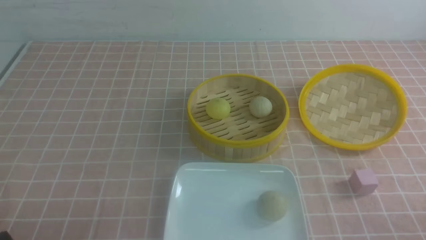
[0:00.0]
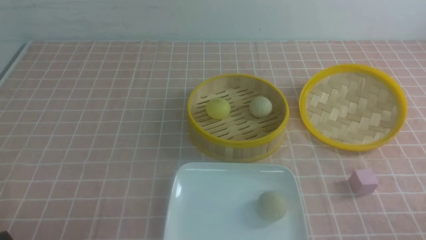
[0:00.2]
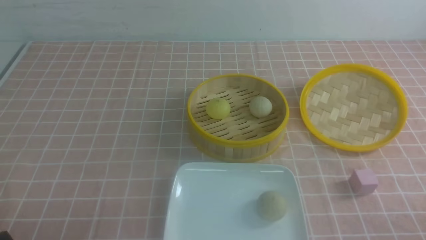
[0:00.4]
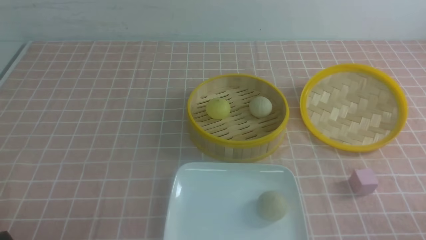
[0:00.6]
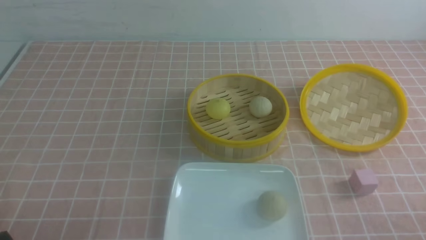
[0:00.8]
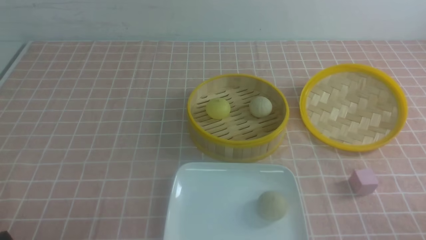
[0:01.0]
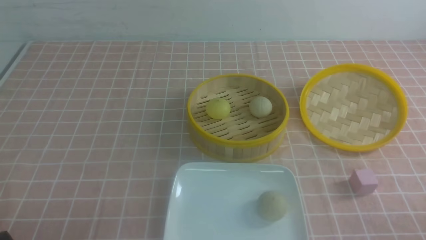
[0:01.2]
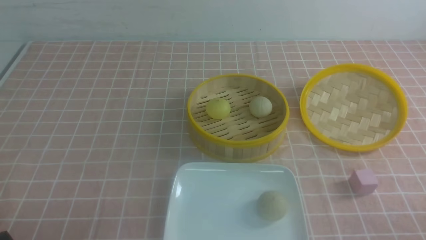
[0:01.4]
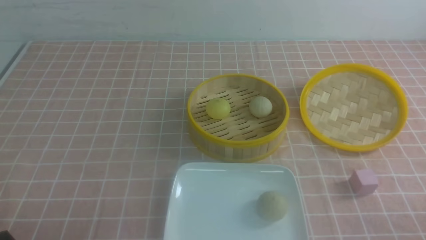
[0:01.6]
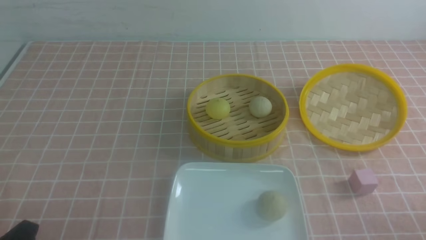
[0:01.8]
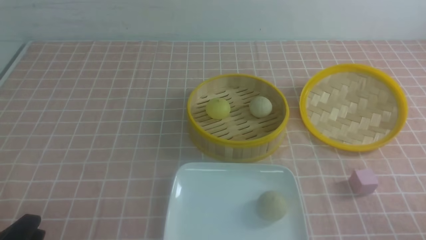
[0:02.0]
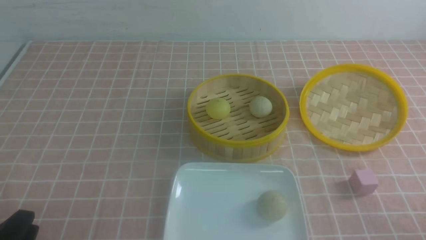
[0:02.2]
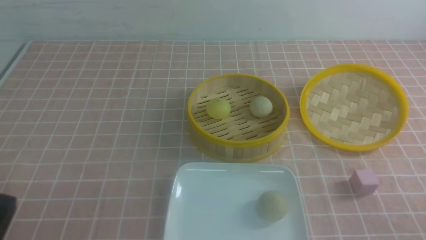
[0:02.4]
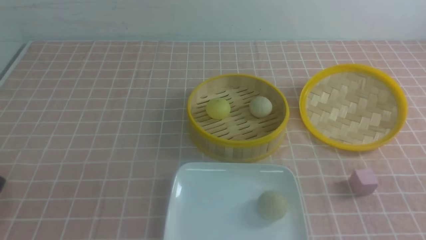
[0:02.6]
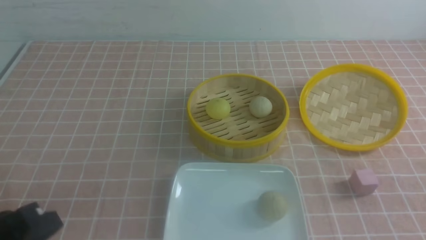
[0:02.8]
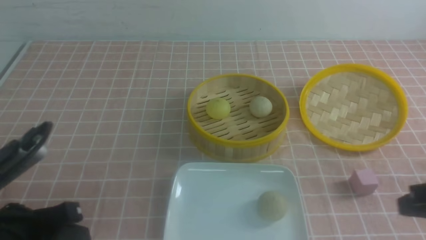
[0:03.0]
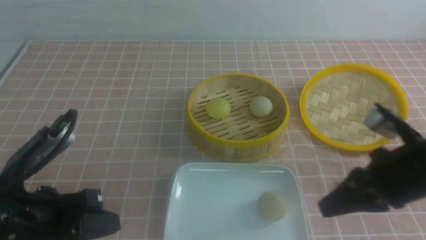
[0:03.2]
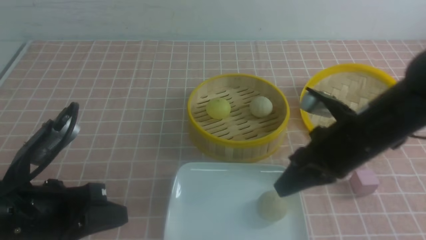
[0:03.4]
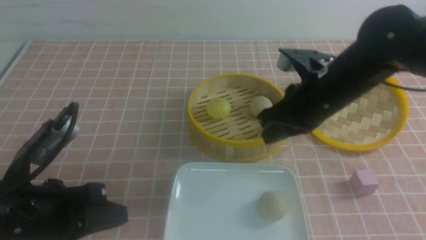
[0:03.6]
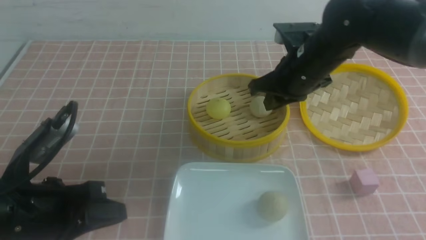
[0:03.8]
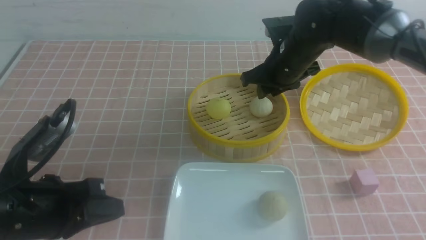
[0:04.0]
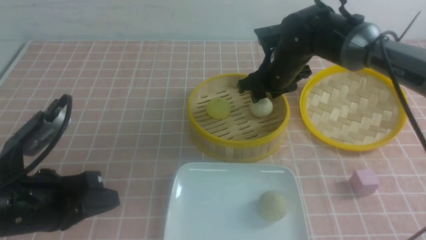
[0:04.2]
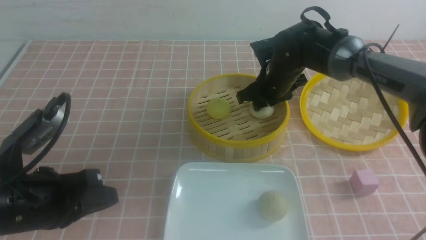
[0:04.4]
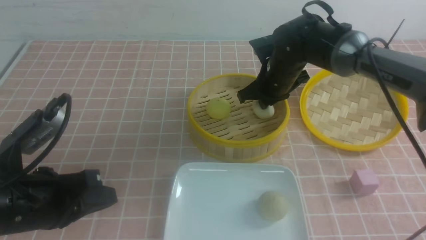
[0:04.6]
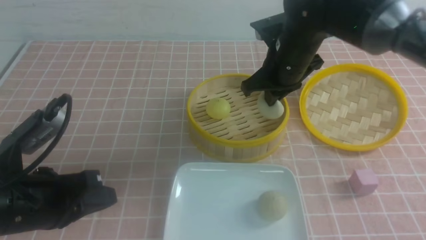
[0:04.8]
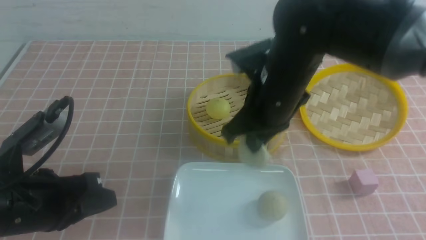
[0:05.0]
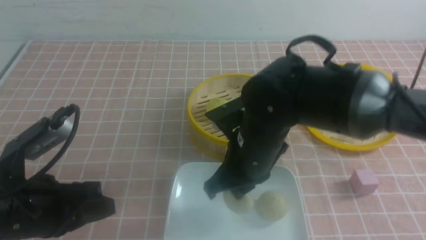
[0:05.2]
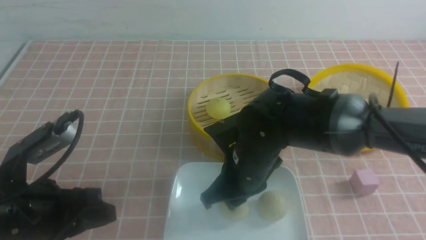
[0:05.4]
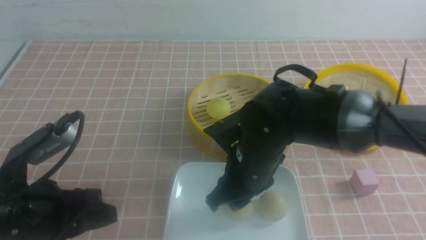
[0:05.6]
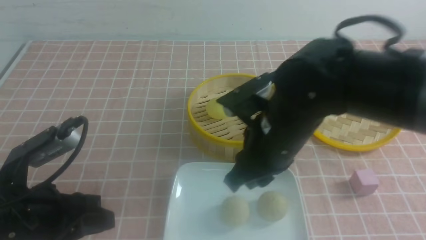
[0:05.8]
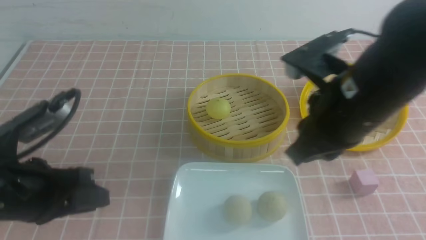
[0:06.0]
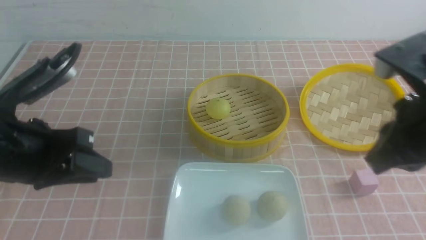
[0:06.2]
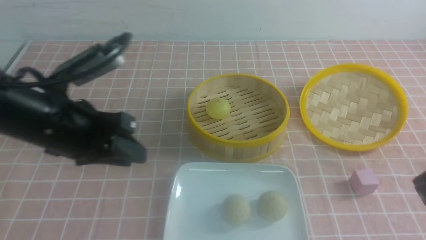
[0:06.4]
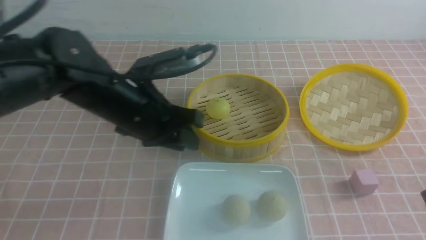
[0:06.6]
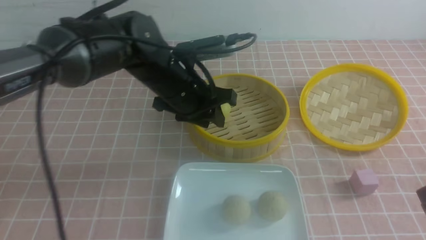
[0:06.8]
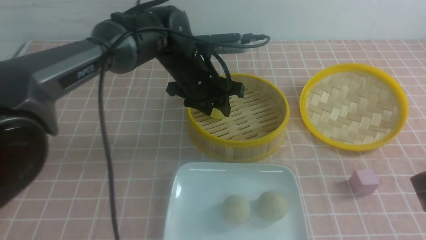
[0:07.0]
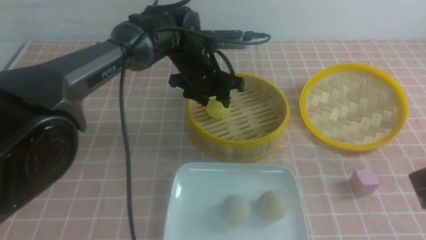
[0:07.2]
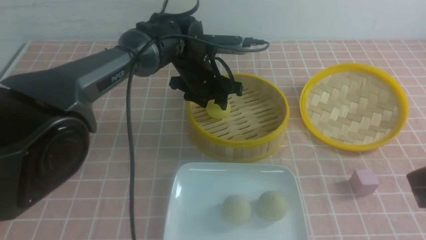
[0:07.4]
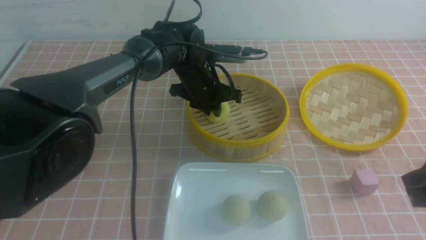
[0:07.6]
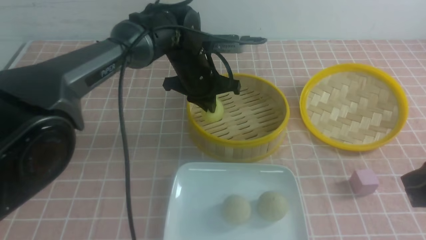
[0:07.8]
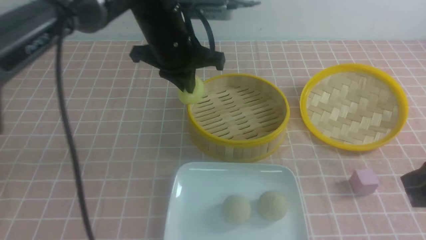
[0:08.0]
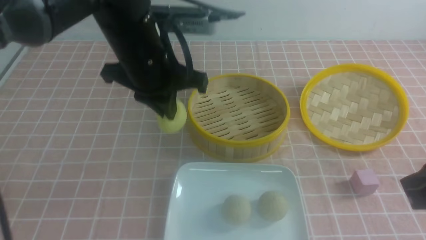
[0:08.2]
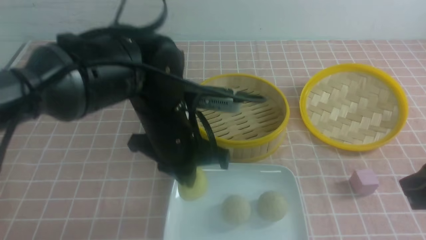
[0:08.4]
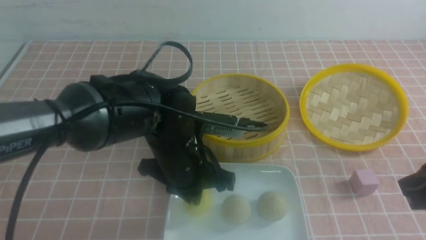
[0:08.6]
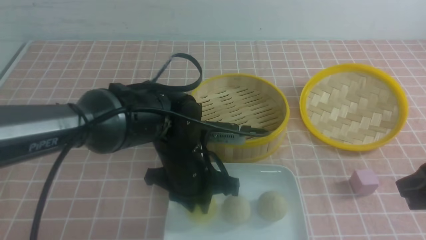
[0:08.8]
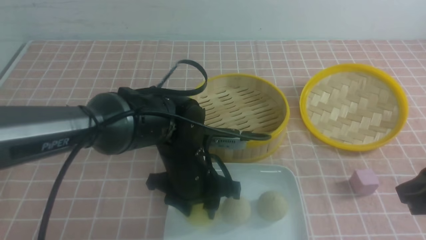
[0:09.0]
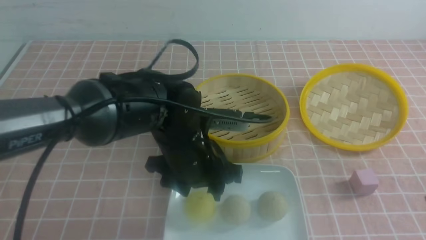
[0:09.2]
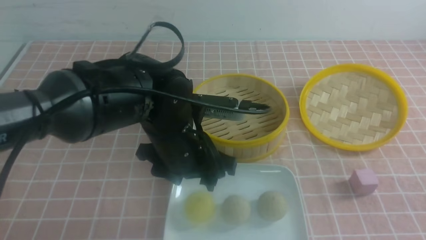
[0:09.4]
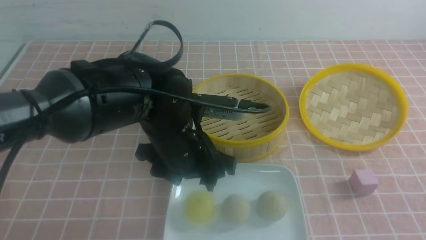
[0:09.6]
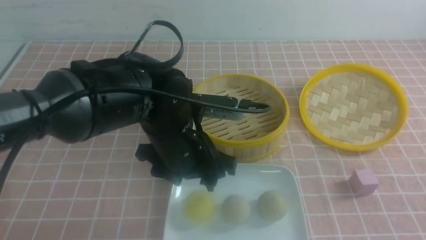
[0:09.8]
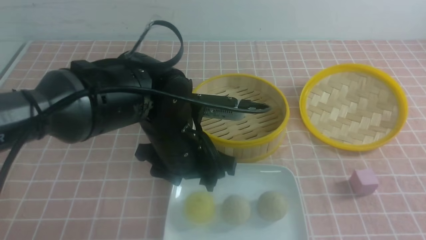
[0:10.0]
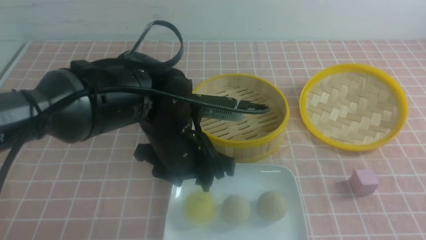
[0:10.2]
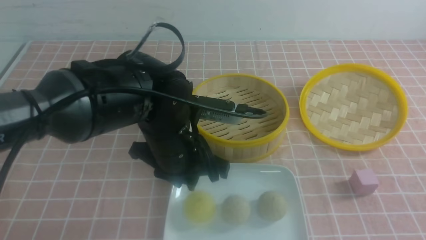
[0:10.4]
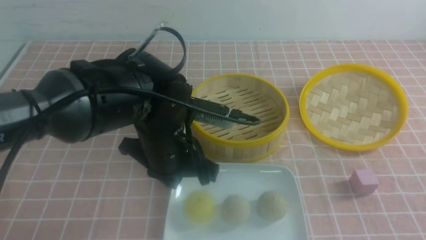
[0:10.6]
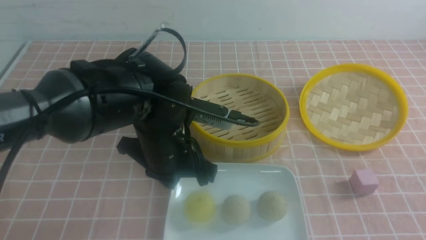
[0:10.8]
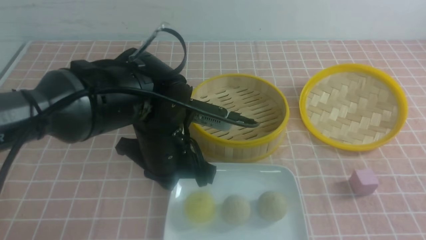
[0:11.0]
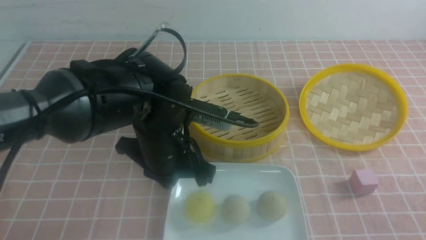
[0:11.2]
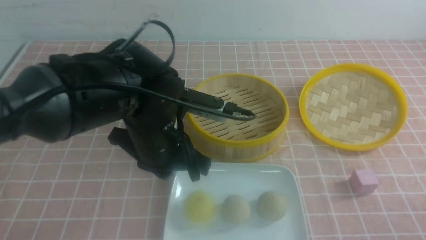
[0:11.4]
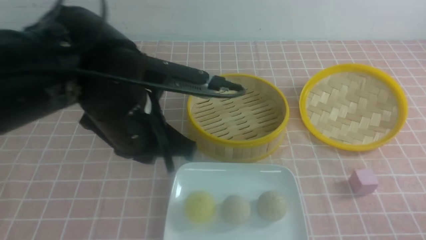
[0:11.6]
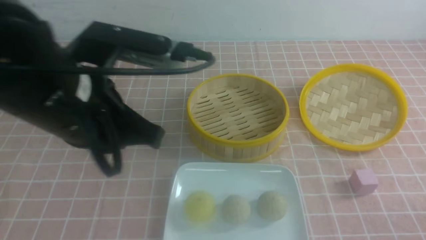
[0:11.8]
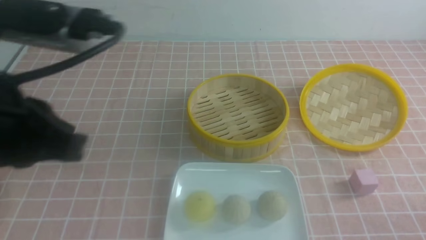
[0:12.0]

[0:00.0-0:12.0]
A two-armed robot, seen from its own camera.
Step, 0:00.0 to 0:04.4: use the right arm to grab the steamed stuffed bun that is closest to it.
Step, 0:04.6 to 0:05.6: use the right arm to put the steamed stuffed bun into the plate.
Step, 0:05.8 to 0:07.6: use the left arm to grab the steamed stuffed bun that is closest to it.
Step, 0:08.0 to 0:08.8: use the left arm to put the steamed stuffed bun into the plate.
0:01.6 to 0:03.0: The left gripper shifts some 10 cm upward and forward, and closes, while the right gripper goes approximately 15 cm upward, forward and to the left, and closes.
0:03.0 to 0:04.4: The right gripper is displaced forward and to the left by roughly 35 cm, and opens up.
0:04.4 to 0:06.0: The right gripper shifts about 25 cm backward and upward, and closes up.
0:06.0 to 0:07.6: The right gripper travels to the right and backward by about 15 cm. The left gripper shifts approximately 30 cm forward and to the right, and opens, then closes once more.
0:07.6 to 0:09.0: The left gripper goes roughly 15 cm backward, and opens up.
0:09.0 to 0:10.4: The left gripper closes up. Meanwhile the right gripper shifts some 10 cm backward.
0:10.4 to 0:12.0: The left gripper shifts some 25 cm upward, to the left and backward, and closes. Meanwhile the right gripper is displaced downward by some 15 cm.

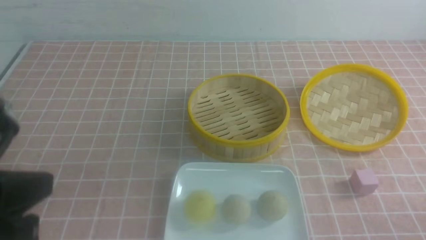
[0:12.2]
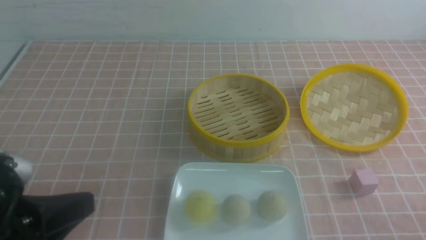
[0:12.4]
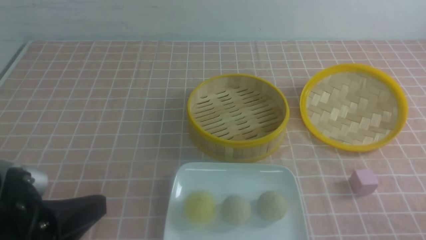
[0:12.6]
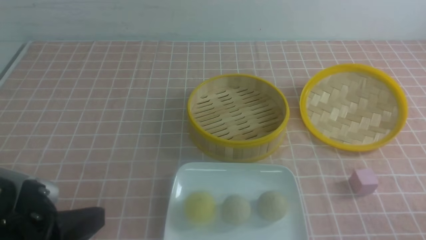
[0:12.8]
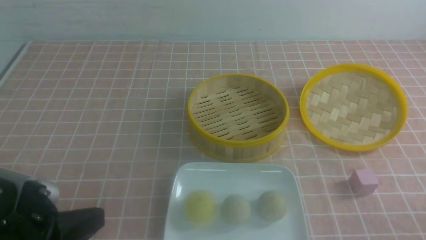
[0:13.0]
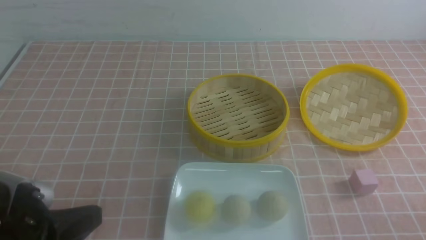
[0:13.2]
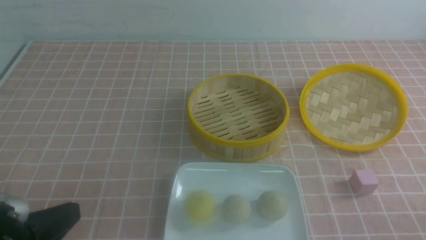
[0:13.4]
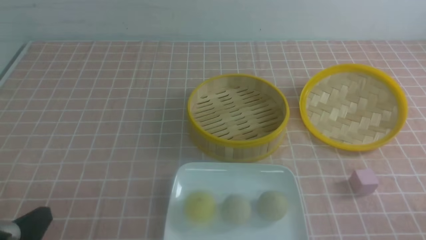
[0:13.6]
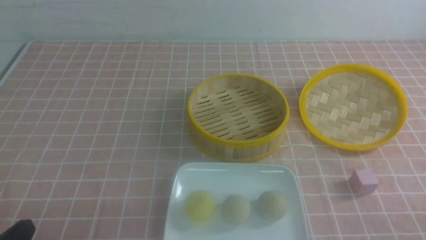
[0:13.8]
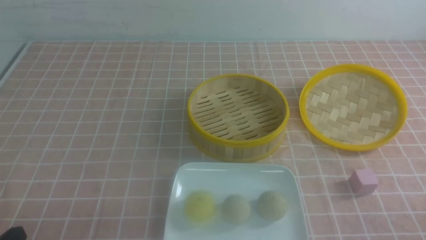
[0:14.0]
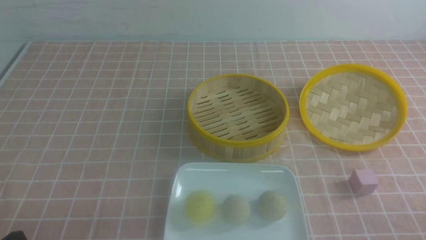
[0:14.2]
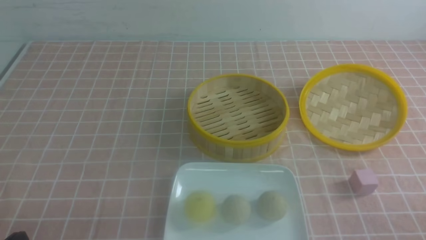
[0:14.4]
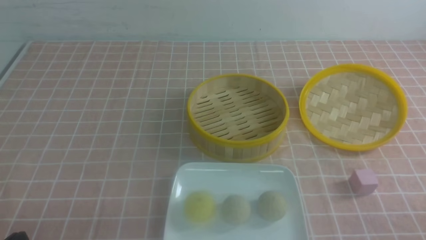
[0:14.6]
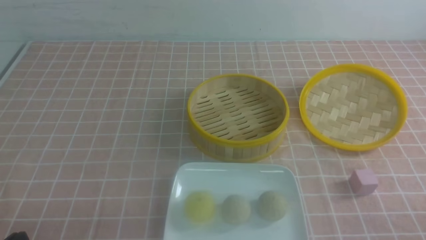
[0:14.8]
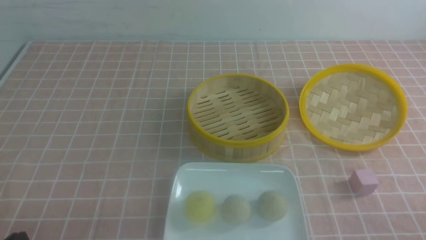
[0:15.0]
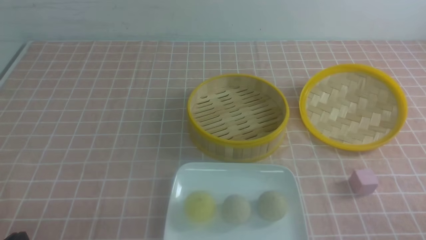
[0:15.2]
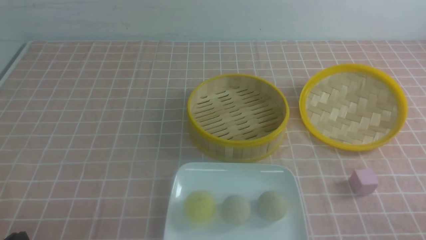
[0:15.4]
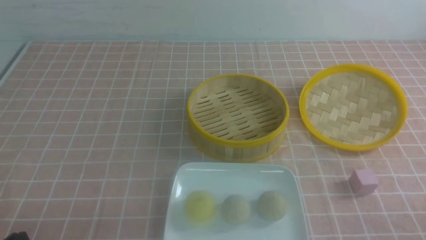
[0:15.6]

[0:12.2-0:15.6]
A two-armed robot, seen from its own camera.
0:12.2 to 0:13.8: The left gripper shifts some 15 cm downward.

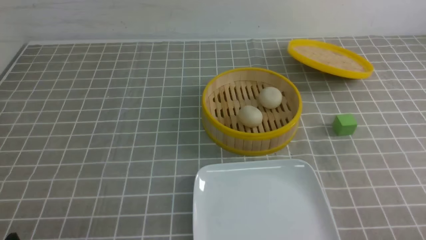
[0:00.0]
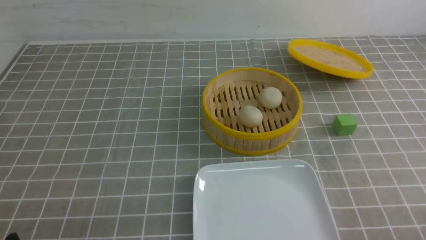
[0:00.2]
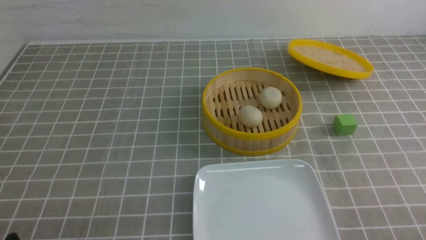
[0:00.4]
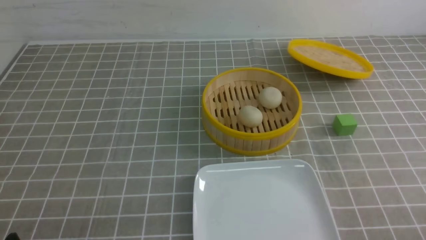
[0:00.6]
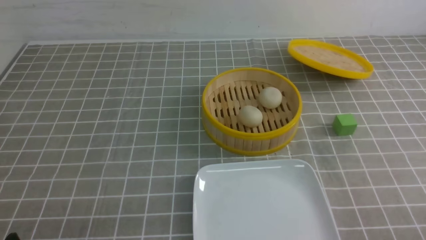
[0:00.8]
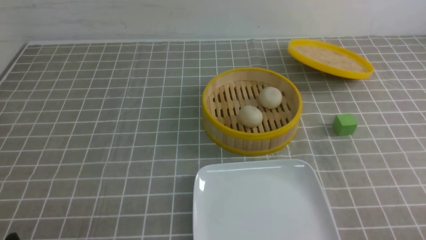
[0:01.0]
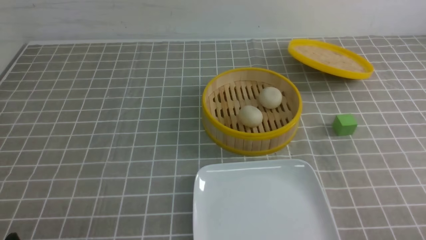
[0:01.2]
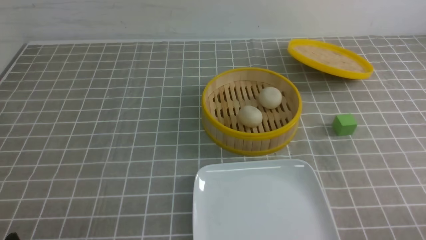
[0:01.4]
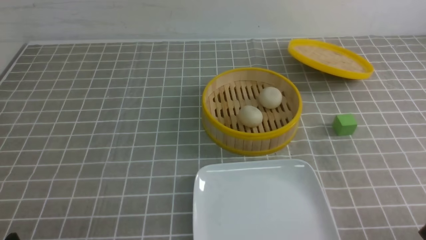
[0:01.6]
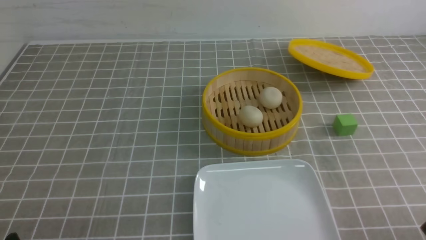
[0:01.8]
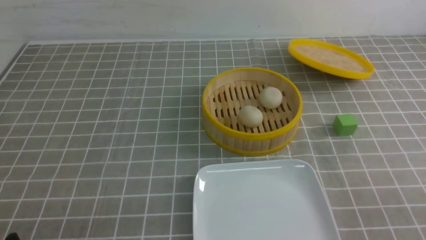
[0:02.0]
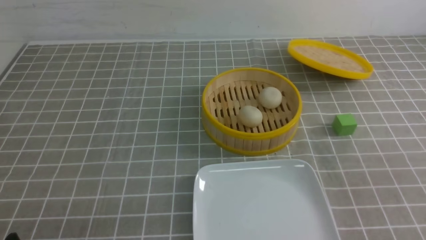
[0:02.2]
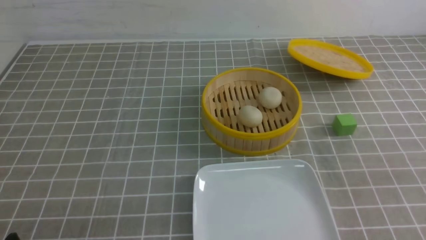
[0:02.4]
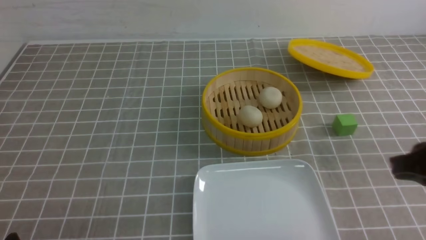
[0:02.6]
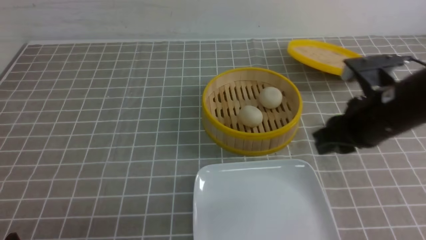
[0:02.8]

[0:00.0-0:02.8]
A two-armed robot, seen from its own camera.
0:01.4 to 0:02.8: The right gripper moves forward, upward and to the left, about 30 cm, and closes, then reopens.
